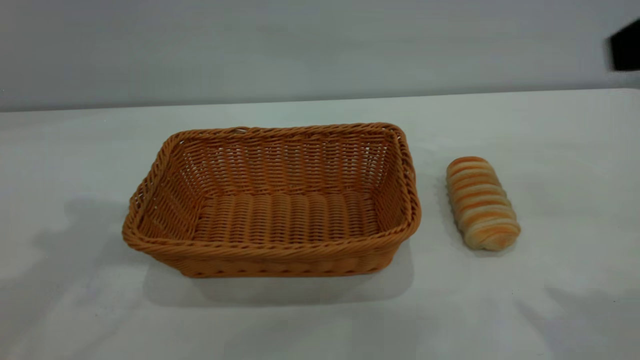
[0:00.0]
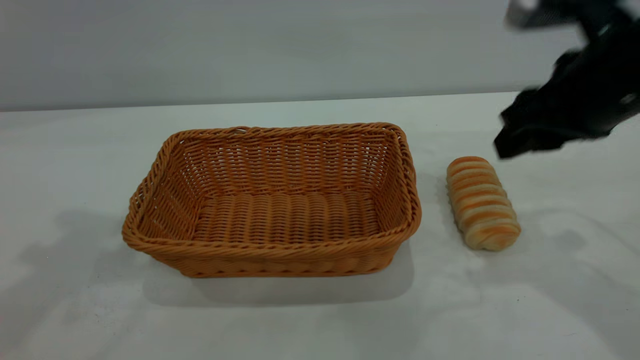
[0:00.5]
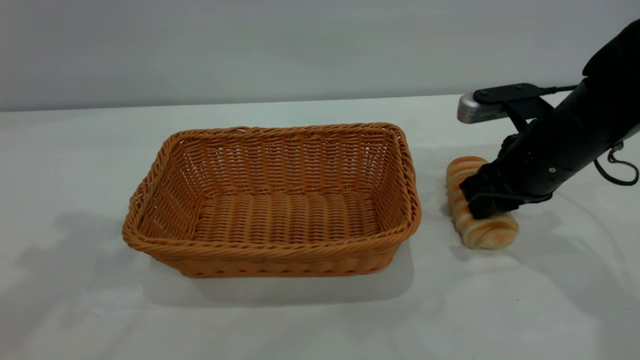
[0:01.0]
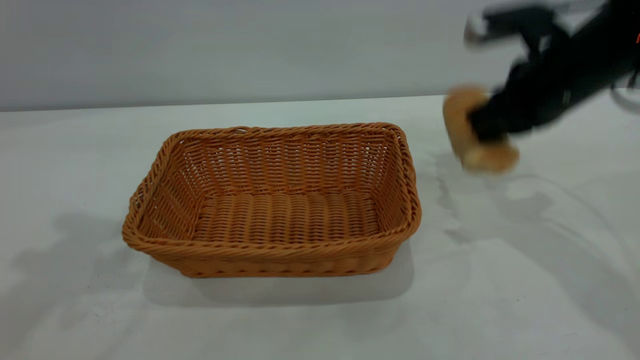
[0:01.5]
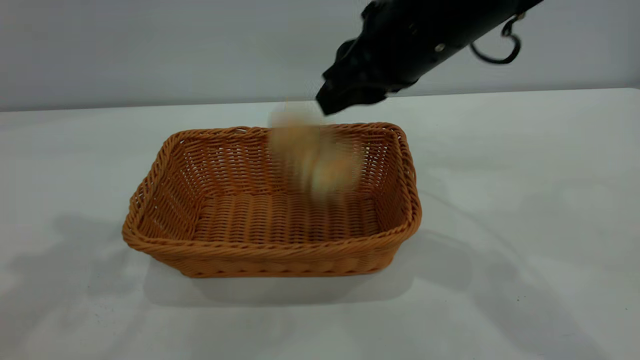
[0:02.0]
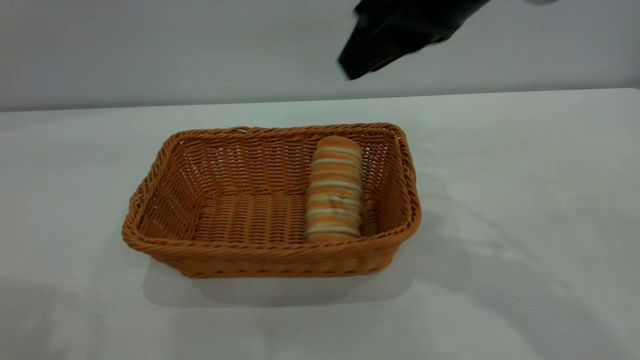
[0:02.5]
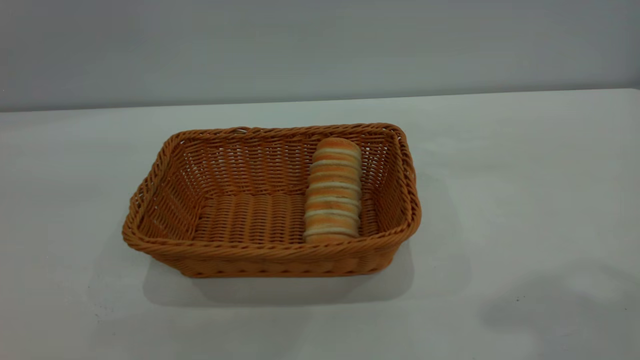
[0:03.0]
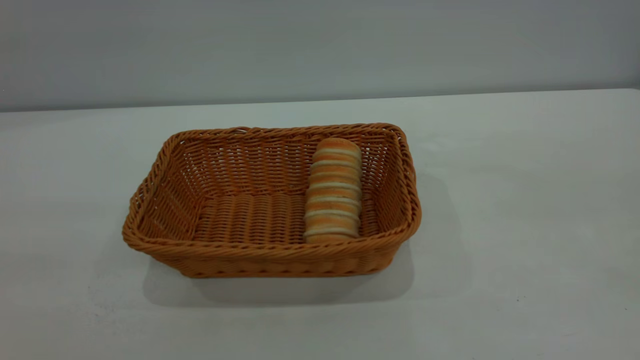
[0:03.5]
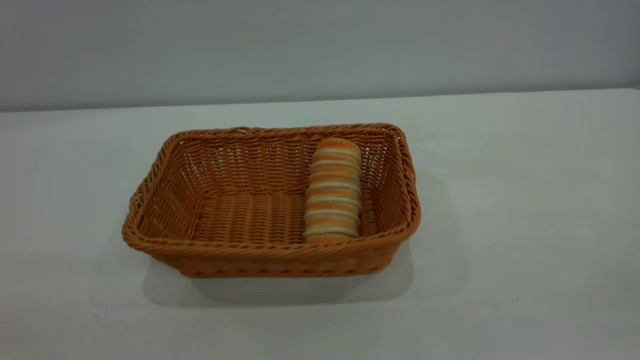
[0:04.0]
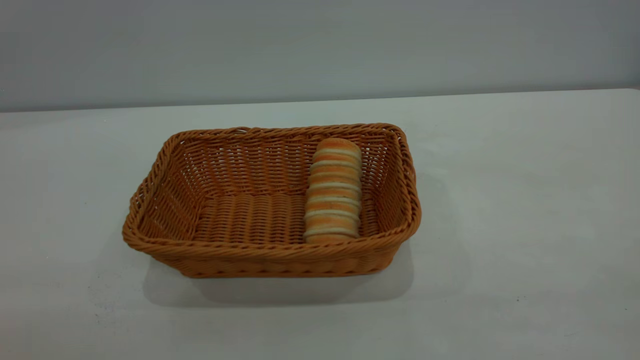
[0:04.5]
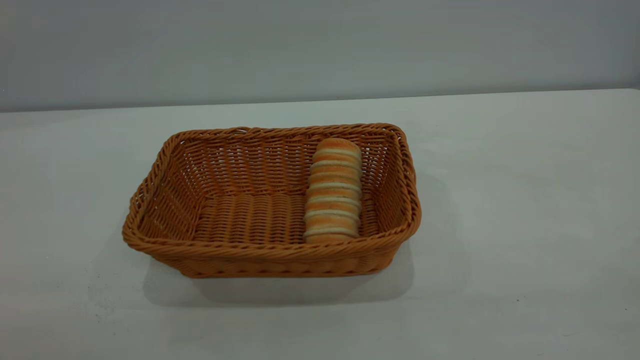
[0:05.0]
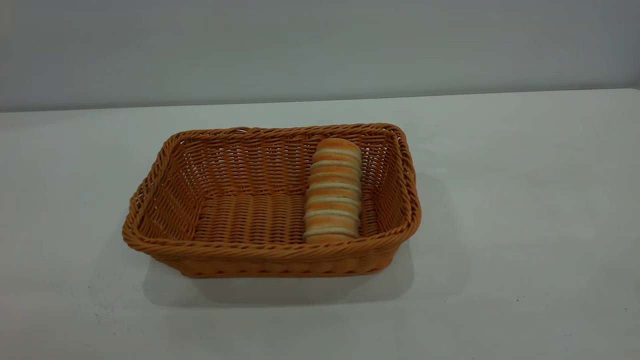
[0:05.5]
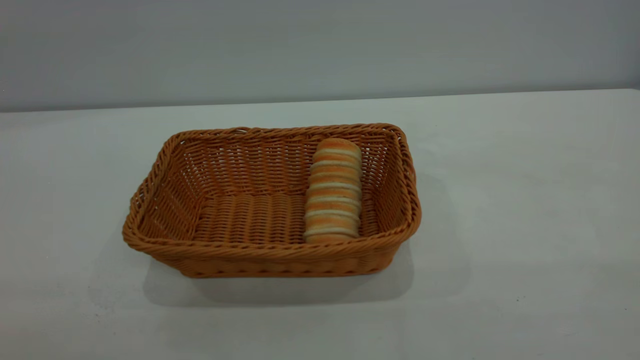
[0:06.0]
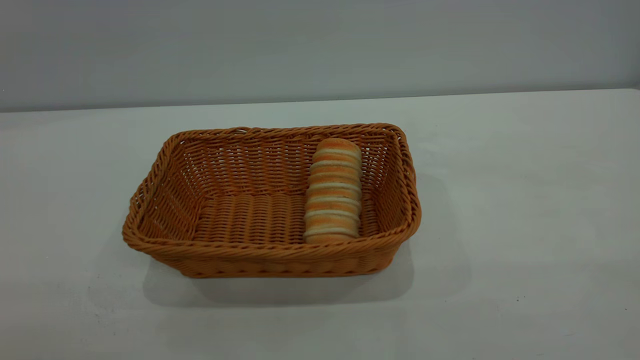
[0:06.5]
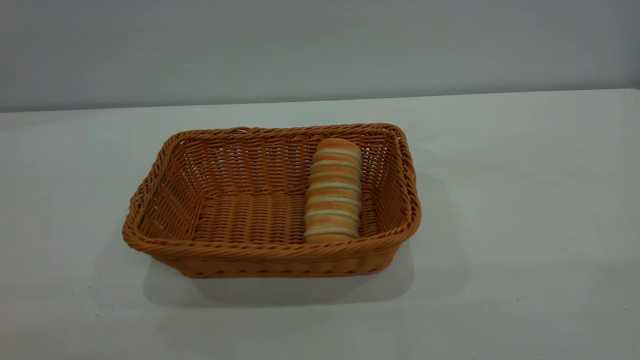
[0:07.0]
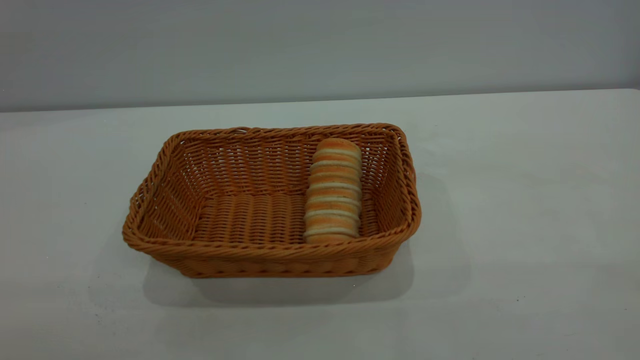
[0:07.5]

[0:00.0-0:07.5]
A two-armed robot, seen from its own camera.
Task of the whole recording: One hand grasps the yellow basket and places it in the middle of the table, while the other hand picks up the long bread and puts it into the yellow basket.
0:00.0 to 0:02.0: The right gripper shifts about 20 cm to the left and forward, moves roughly 20 cm downward and comes back, and closes up.
0:02.0 to 0:04.0: The left gripper travels backward by some 30 cm. Meanwhile the right gripper is displaced backward, to the right and upward by some 40 cm.

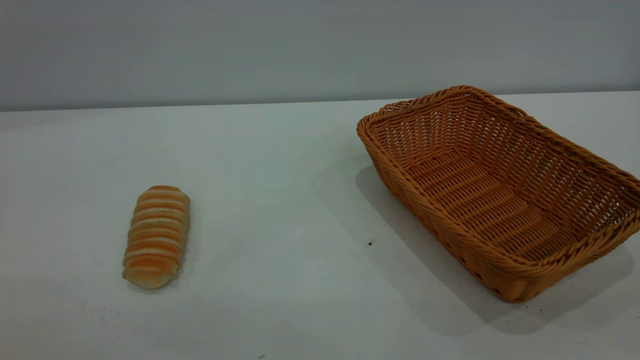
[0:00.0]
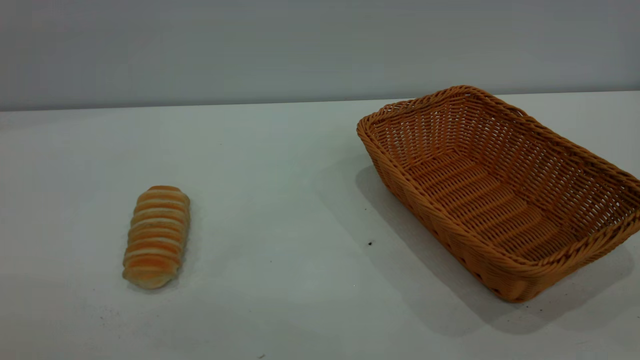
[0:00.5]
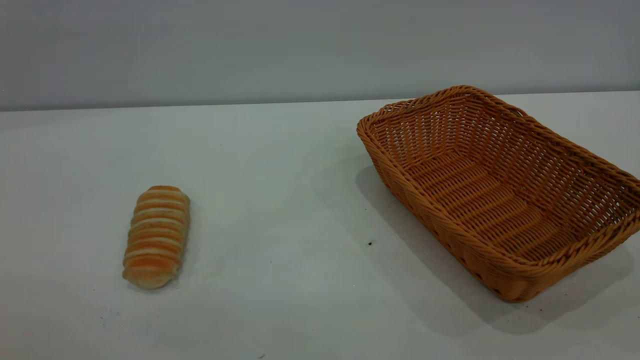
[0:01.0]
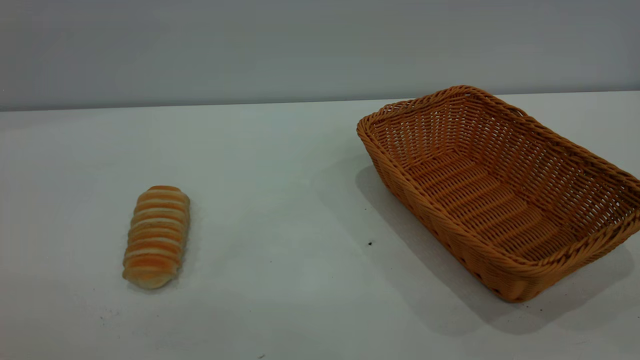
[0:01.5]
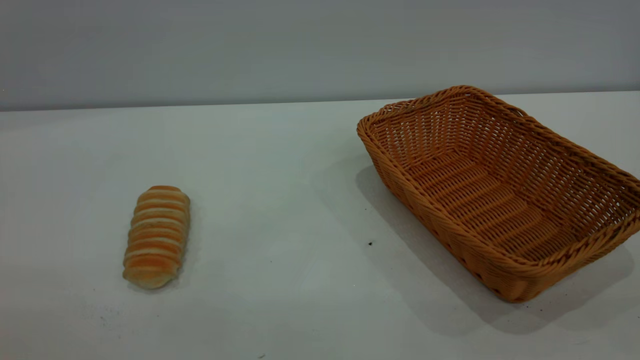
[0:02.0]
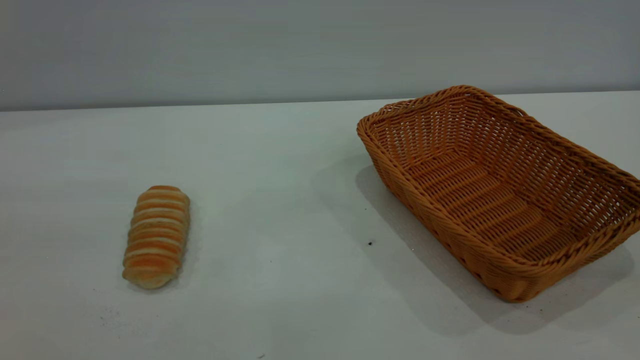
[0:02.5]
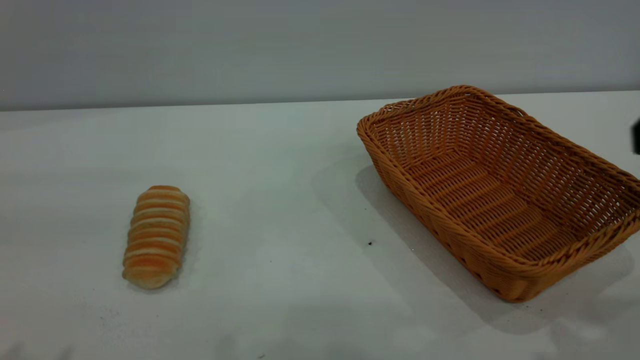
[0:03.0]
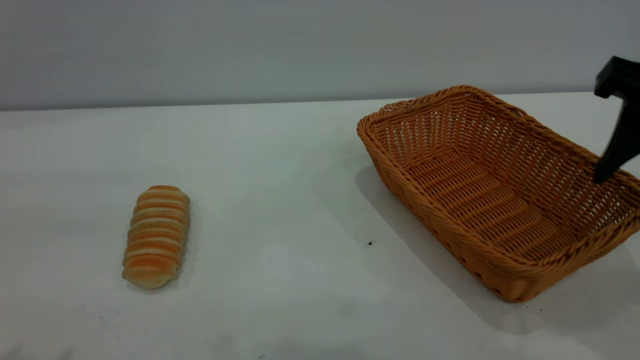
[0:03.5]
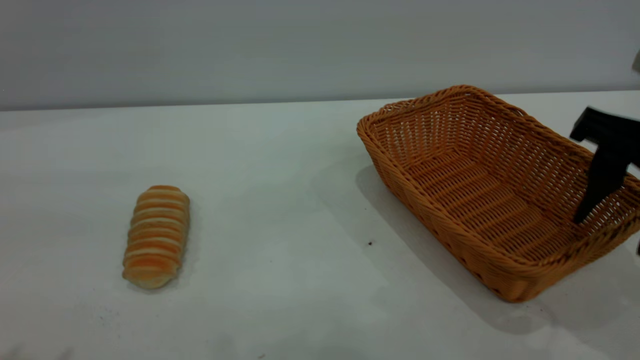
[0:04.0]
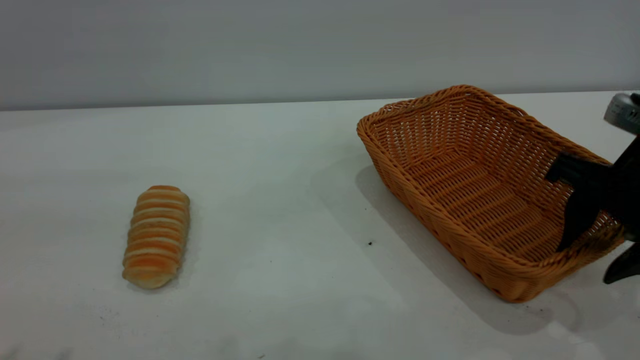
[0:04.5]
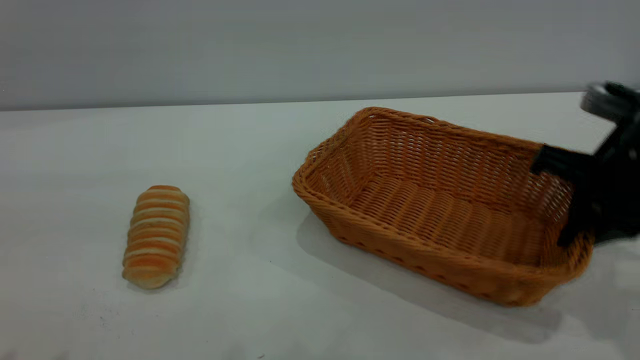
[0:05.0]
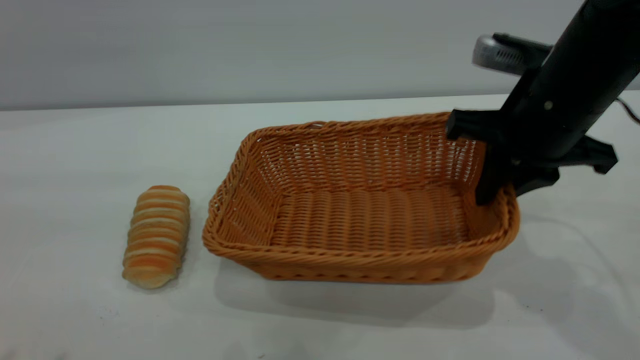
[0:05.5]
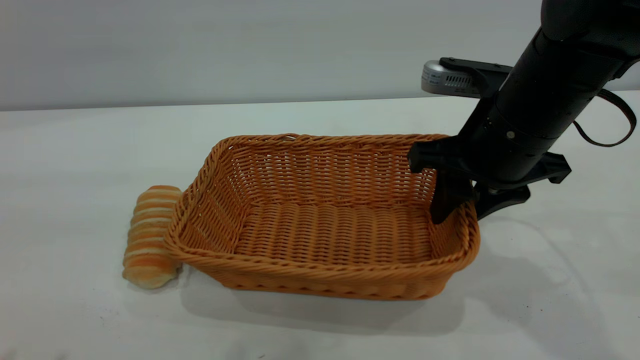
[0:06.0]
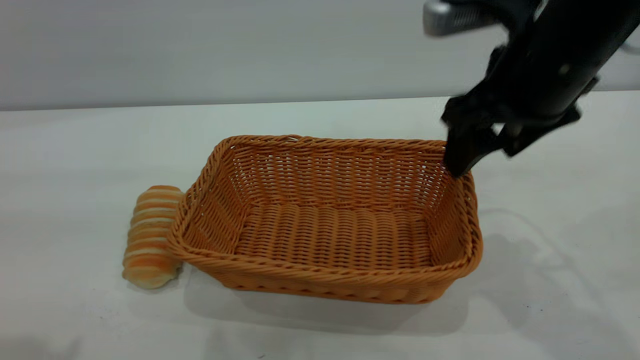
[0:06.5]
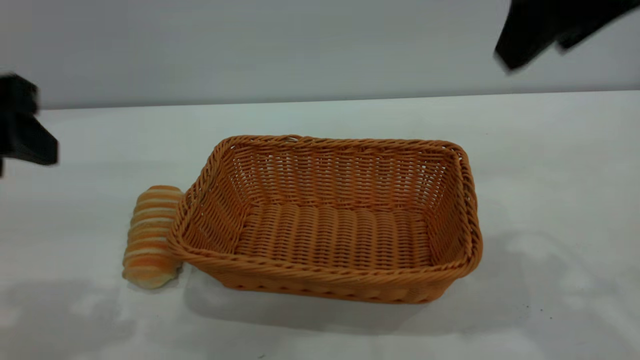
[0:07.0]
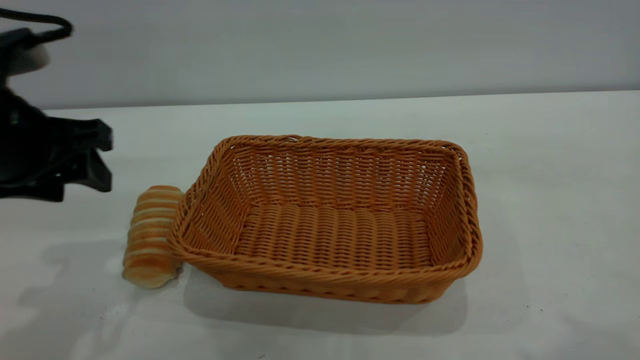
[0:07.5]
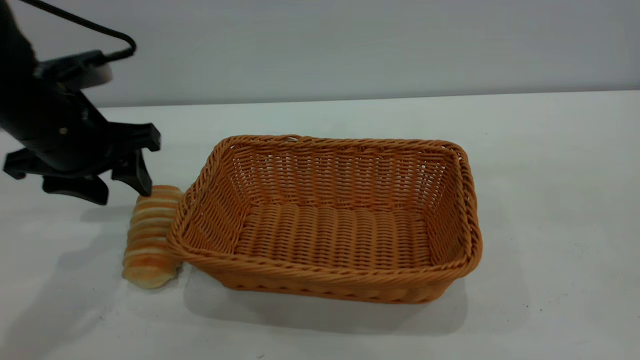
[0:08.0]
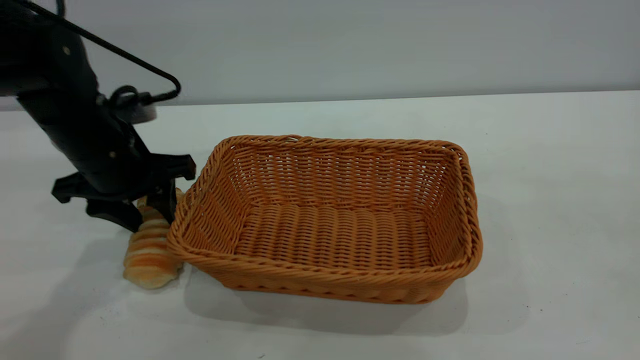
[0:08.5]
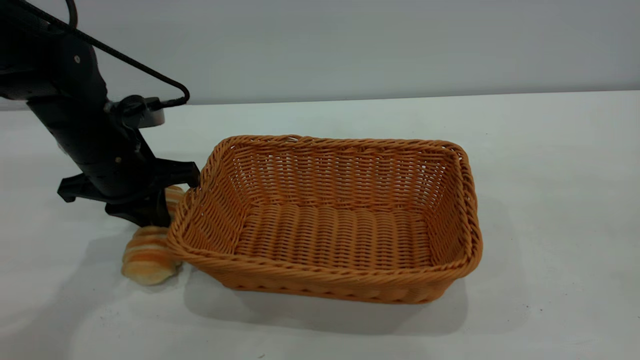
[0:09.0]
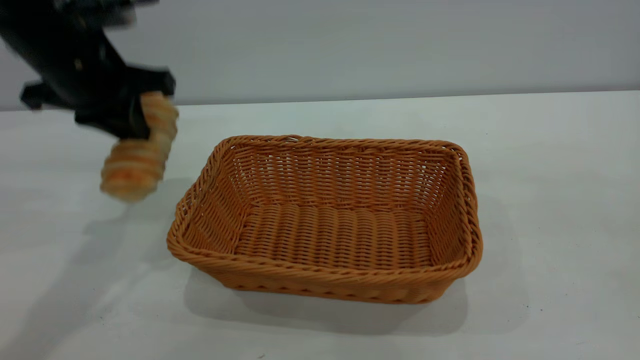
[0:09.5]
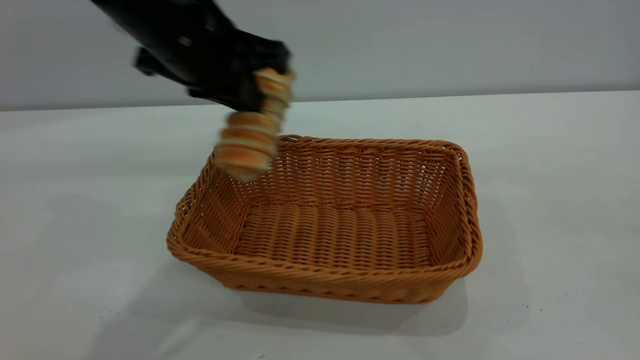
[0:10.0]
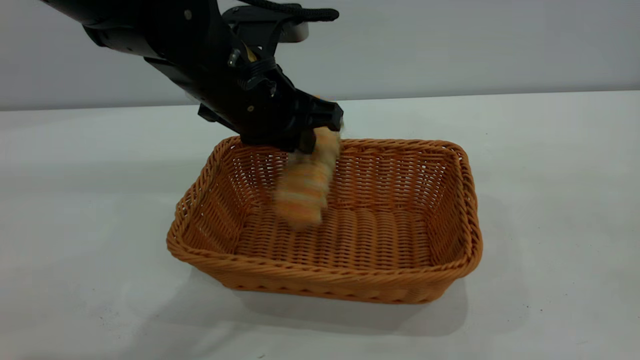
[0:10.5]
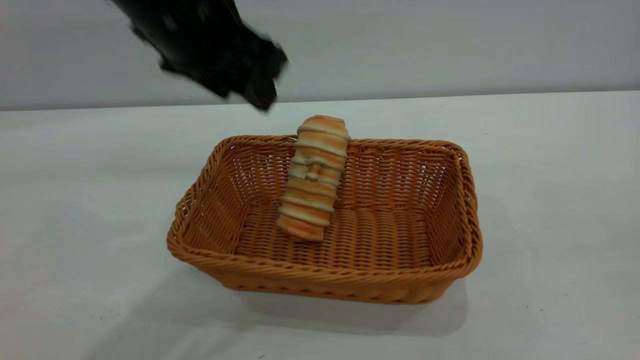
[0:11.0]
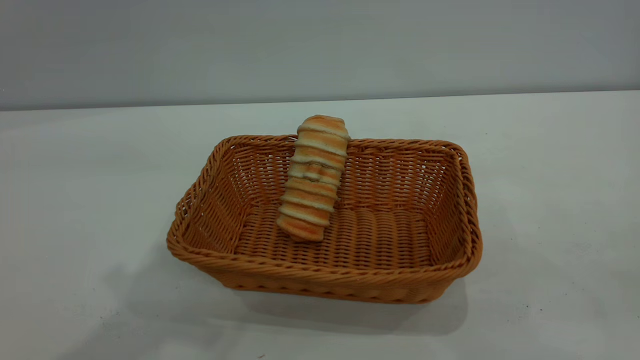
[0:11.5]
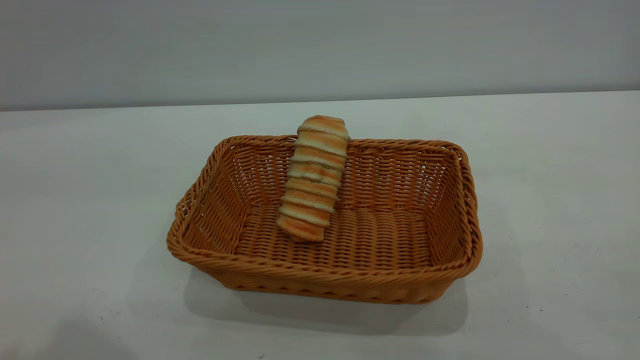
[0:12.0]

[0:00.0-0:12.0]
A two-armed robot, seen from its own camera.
Task of the whole recording: One hand grasps the yellow basket and places it in the middle of the table, while the other hand picks up the long bread and puts it into the yellow basket.
Step, 0:00.0 to 0:06.5: Move the basket to the center of view.
Step, 0:10.0 to 0:11.0: place the bread into the basket.
0:02.0 to 0:04.0: The right gripper moves forward and downward, approximately 30 cm.
0:04.0 to 0:06.0: The right gripper moves to the left and forward, about 10 cm, and closes and opens again.
0:06.0 to 0:08.0: The left gripper travels forward and downward by approximately 30 cm. Meanwhile the right gripper moves upward and backward, roughly 40 cm, and opens.
0:08.0 to 0:10.0: The left gripper moves to the right and upward, approximately 15 cm, and closes.
0:10.0 to 0:12.0: The right gripper goes roughly 15 cm downward and backward. The left gripper travels upward, backward and to the left by some 30 cm, and opens up.
